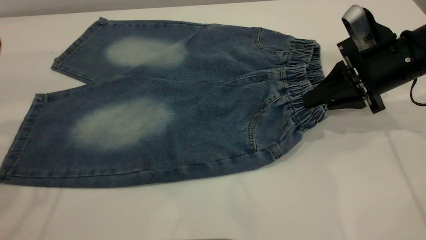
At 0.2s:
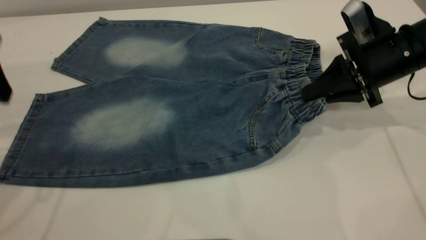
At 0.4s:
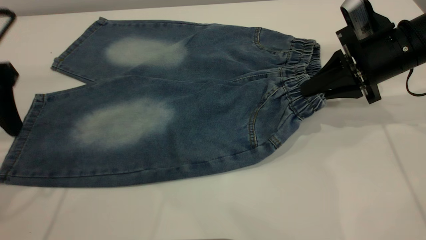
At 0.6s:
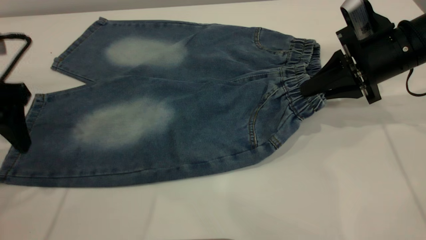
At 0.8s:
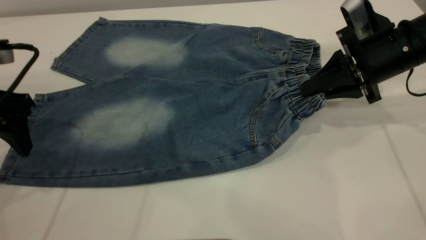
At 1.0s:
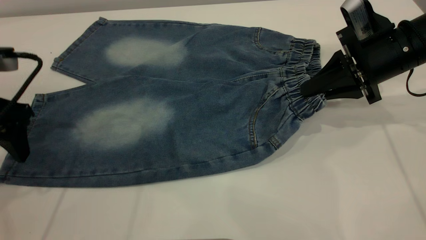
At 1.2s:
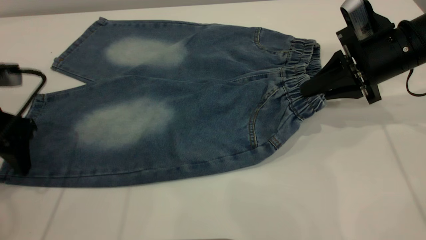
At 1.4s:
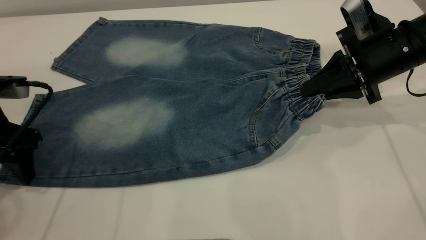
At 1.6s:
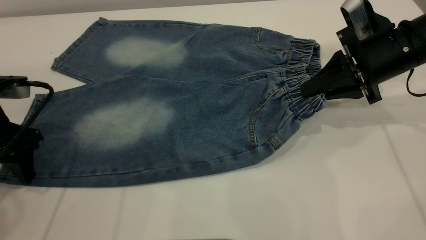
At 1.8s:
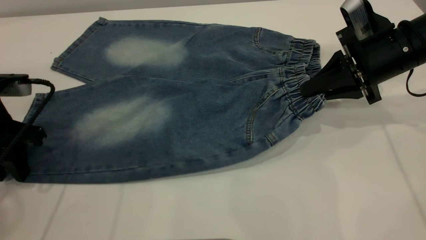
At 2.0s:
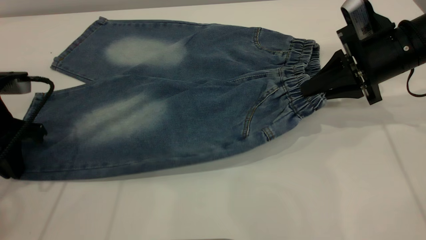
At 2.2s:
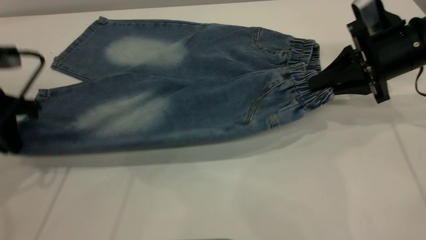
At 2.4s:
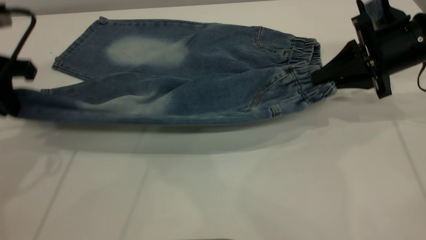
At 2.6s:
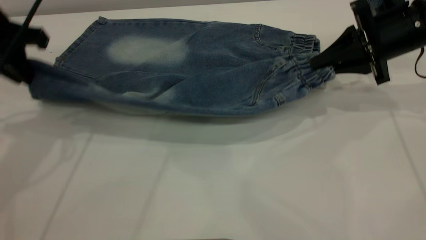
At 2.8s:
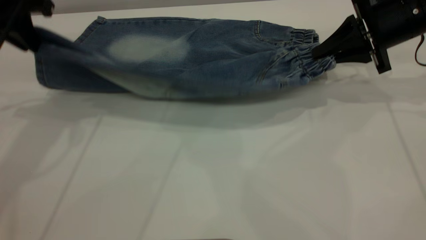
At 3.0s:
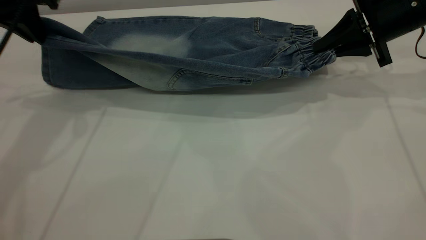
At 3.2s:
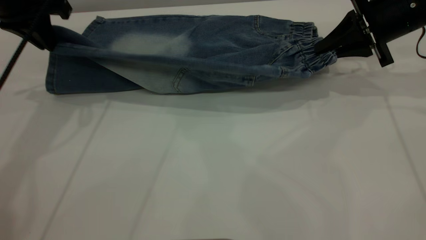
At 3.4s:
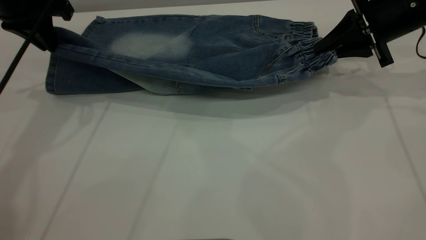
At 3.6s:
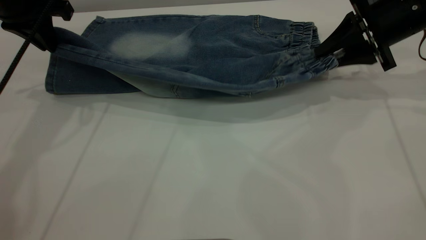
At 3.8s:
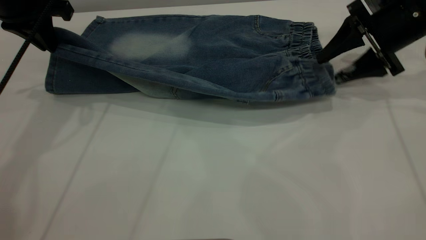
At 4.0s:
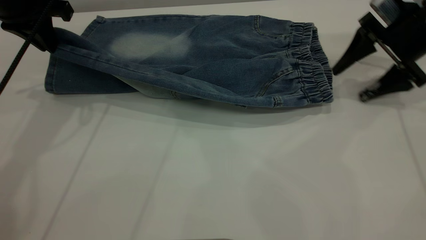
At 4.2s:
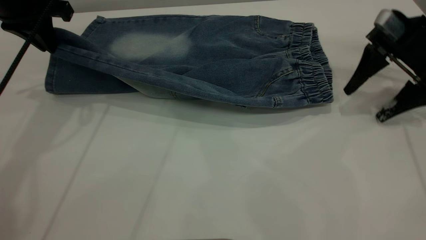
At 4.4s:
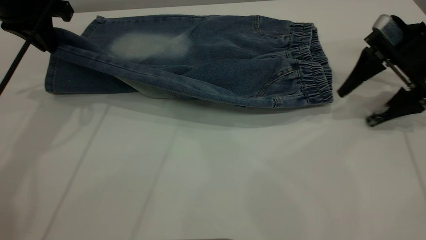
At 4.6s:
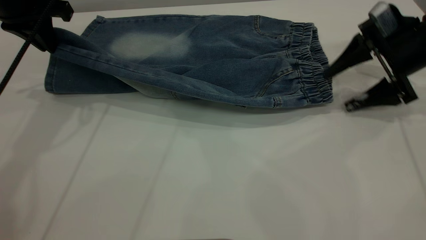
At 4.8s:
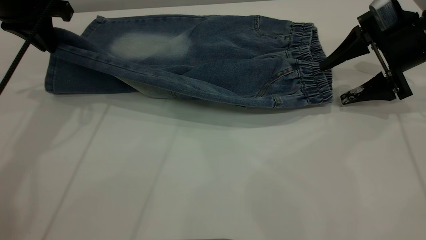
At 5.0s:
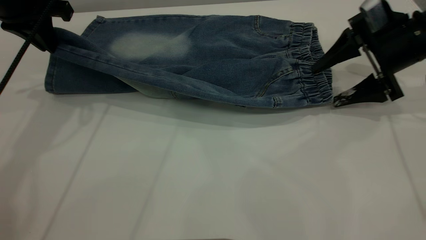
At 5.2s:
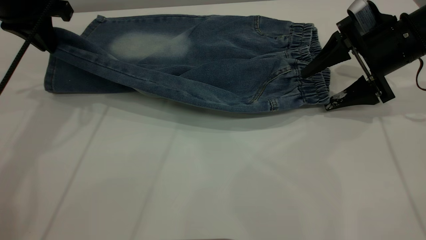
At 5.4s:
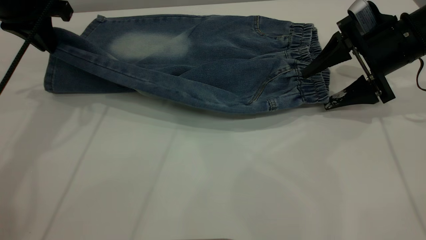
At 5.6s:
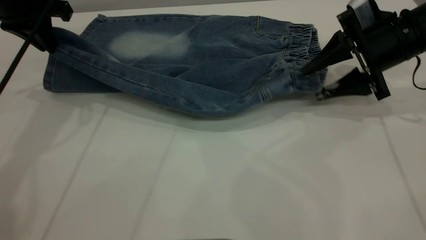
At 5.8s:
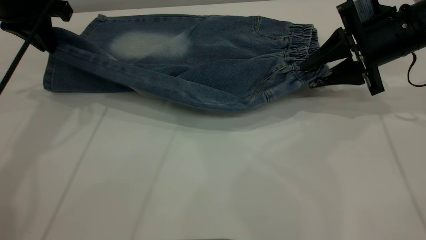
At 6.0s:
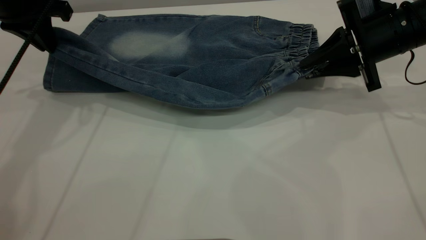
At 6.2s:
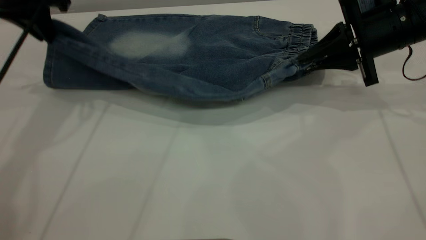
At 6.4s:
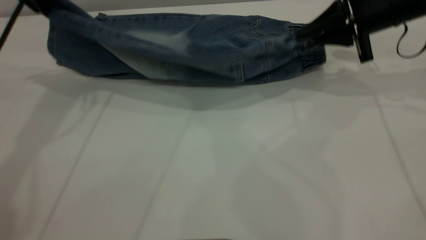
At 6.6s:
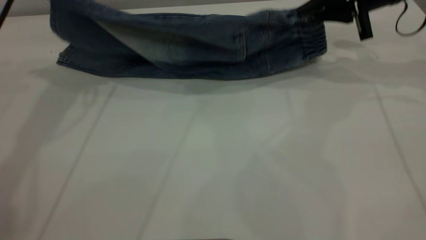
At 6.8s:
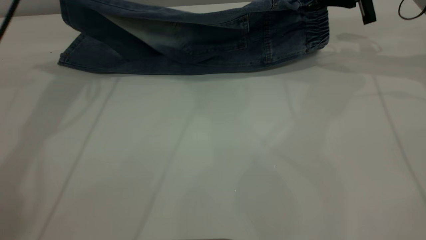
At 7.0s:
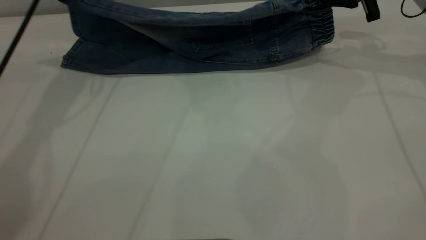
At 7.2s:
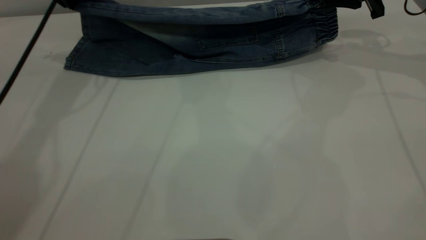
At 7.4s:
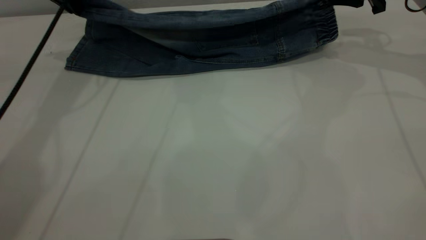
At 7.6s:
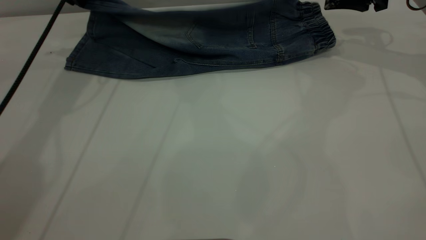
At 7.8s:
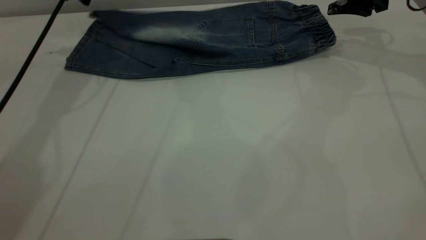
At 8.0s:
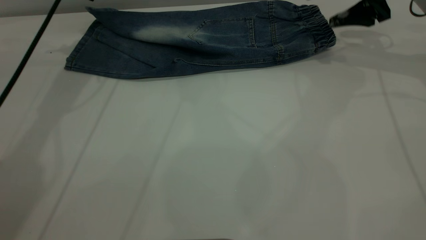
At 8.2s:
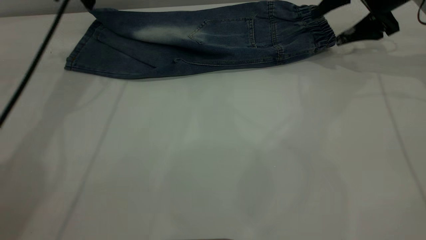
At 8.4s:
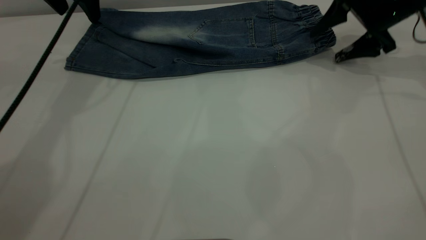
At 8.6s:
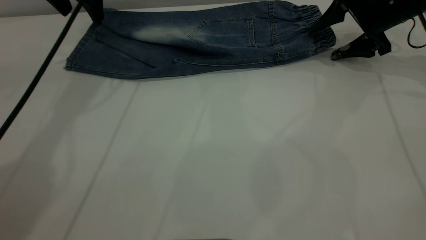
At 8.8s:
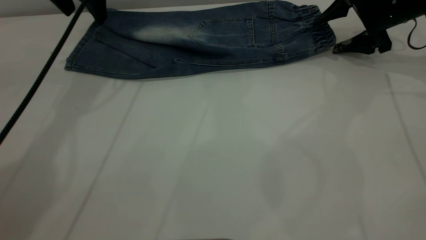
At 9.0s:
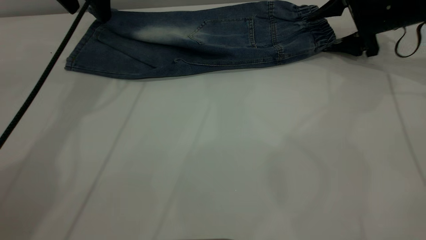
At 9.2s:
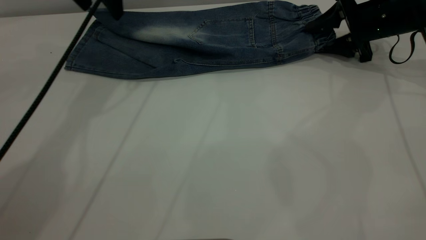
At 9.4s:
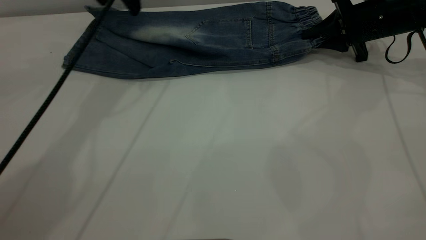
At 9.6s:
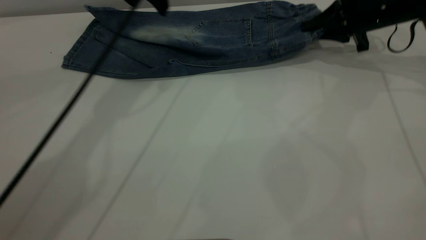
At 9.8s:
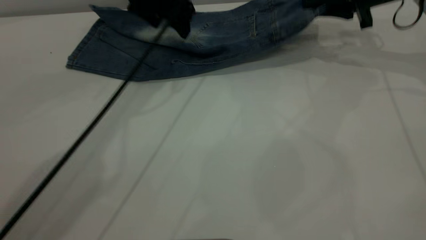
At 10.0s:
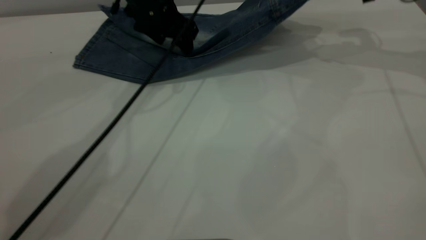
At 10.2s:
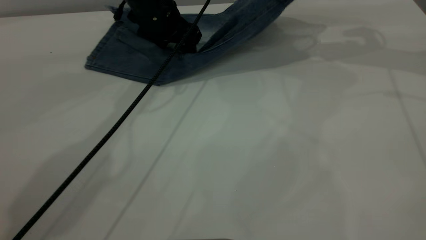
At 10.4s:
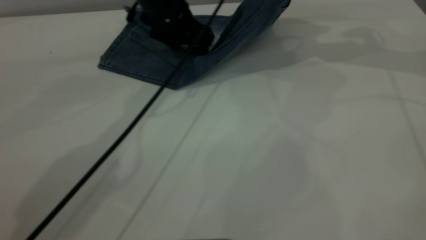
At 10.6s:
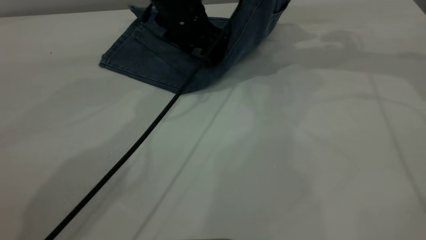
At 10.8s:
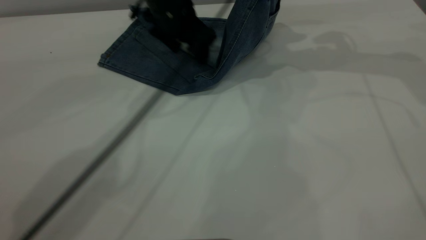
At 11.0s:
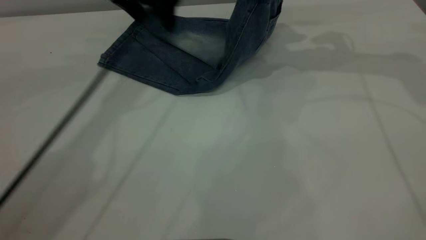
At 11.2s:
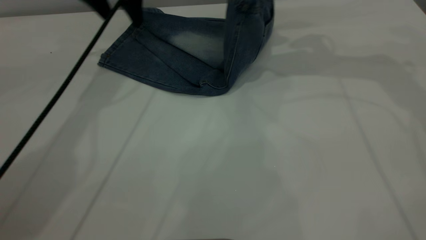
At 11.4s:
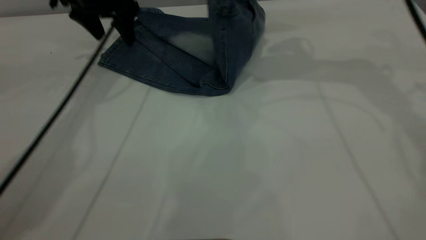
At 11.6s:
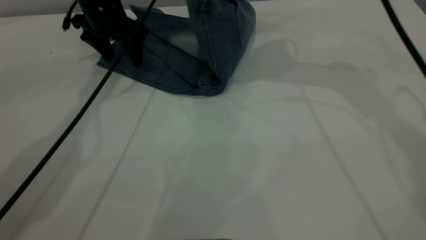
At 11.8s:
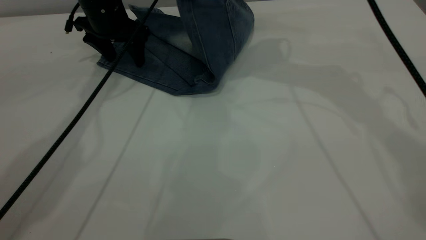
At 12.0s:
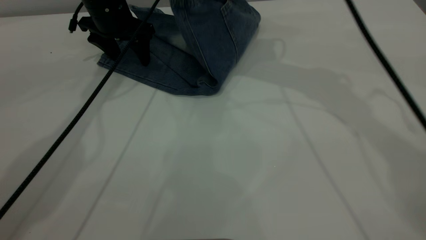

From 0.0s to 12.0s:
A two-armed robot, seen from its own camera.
Step, from 0.0s to 8.4s: Fold the bottom of the pants upward.
From 0.0s to 1.6s: The left gripper is displaced downward by some 15 cm.
From 1.6s to 3.0s: The left gripper travels upward and forward by roughly 15 cm, and closes; the right gripper shifts some 5 cm forward.
From 3.0s to 4.4s: The right gripper shifts by approximately 5 cm, and opens.
From 4.4s to 6.0s: The right gripper closes up.
From 6.0s to 7.6s: The left gripper is displaced forward by about 10 cm. Meanwhile the right gripper shifts approximately 10 cm forward and upward, and opens.
From 7.6s to 9.0s: The left gripper moves roughly 5 cm, and opens its fingers. The right gripper goes roughly 10 cm downward.
From 9.0s to 10.4s: The right gripper travels upward by roughly 15 cm, and closes its fingers; the left gripper goes about 15 cm to the right and downward.
From 10.4s to 12.0s: The left gripper heads to the left, covering some 10 cm, while the right gripper goes about 20 cm to the left.

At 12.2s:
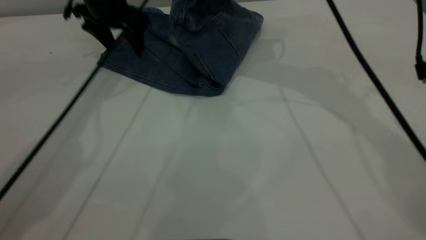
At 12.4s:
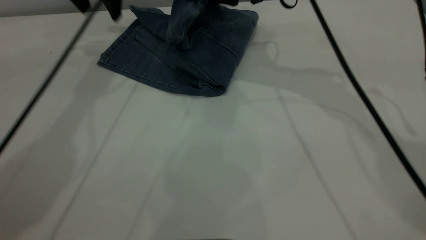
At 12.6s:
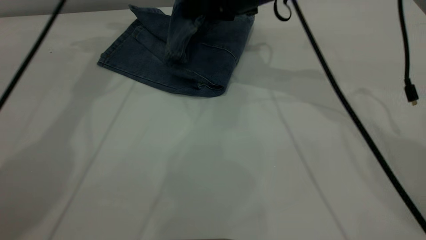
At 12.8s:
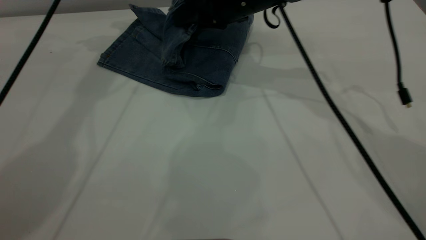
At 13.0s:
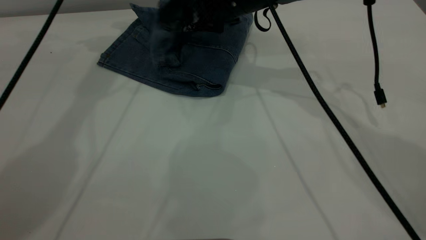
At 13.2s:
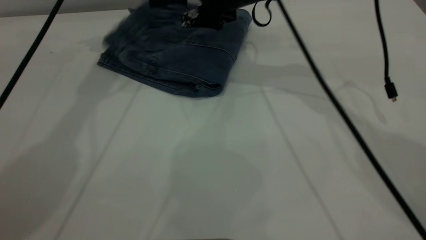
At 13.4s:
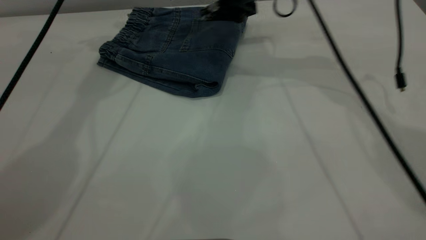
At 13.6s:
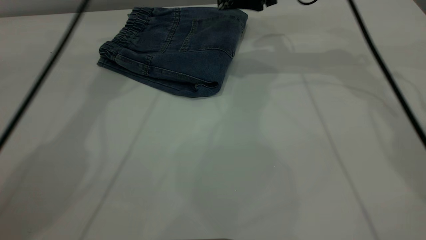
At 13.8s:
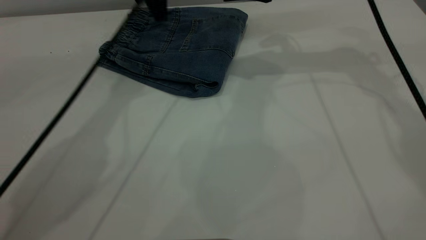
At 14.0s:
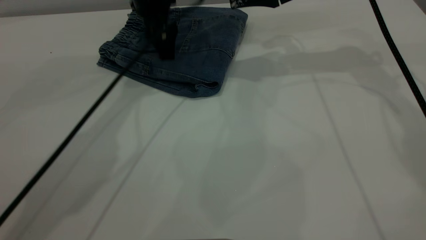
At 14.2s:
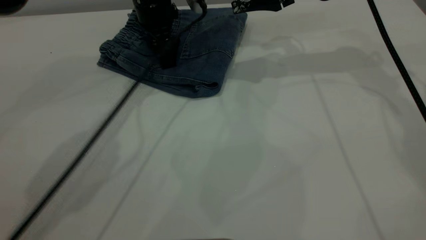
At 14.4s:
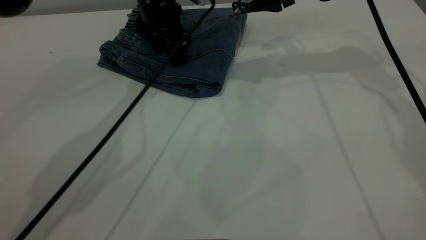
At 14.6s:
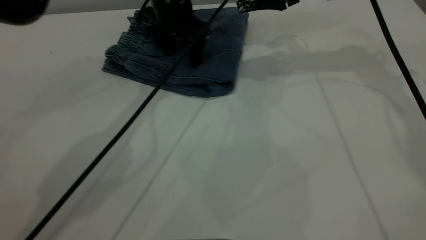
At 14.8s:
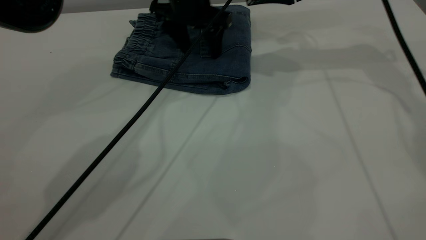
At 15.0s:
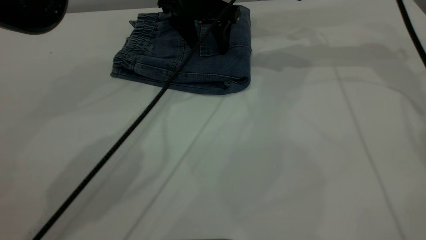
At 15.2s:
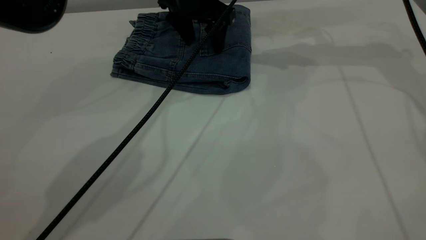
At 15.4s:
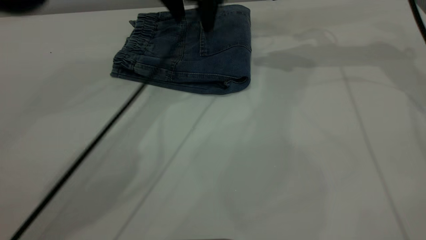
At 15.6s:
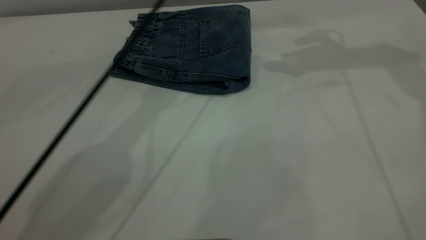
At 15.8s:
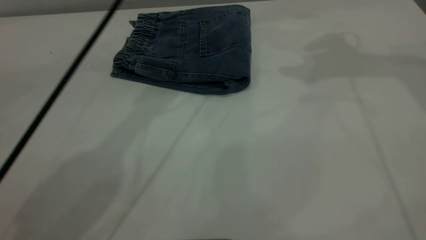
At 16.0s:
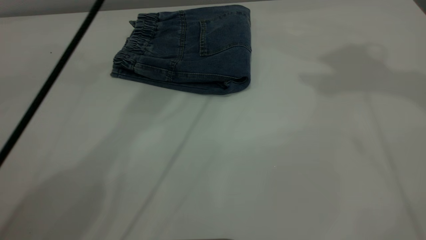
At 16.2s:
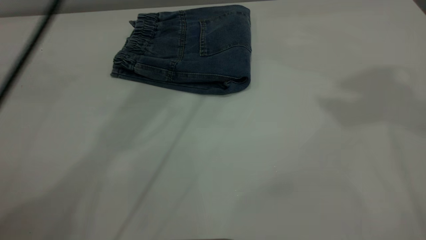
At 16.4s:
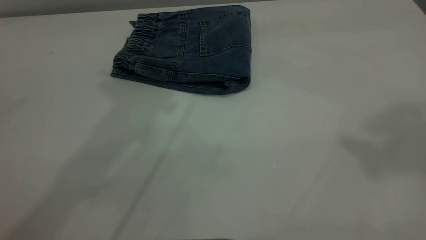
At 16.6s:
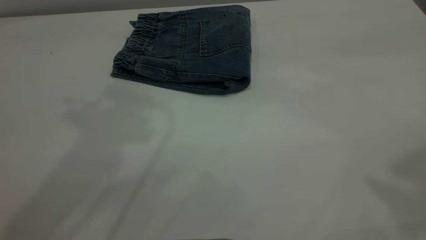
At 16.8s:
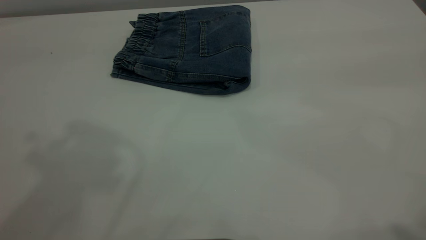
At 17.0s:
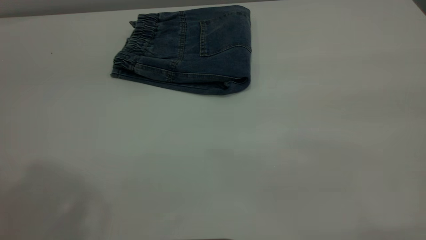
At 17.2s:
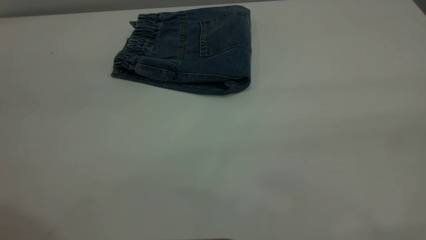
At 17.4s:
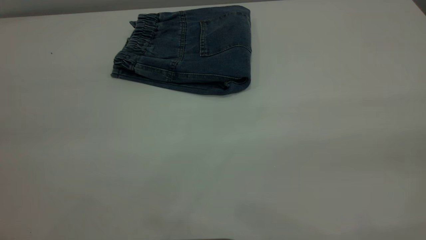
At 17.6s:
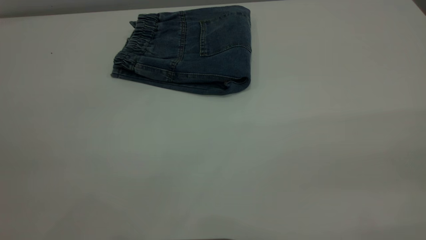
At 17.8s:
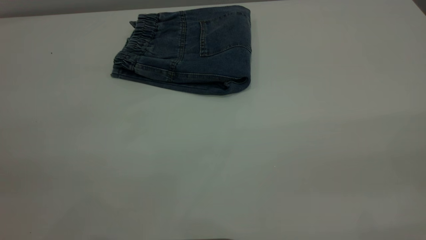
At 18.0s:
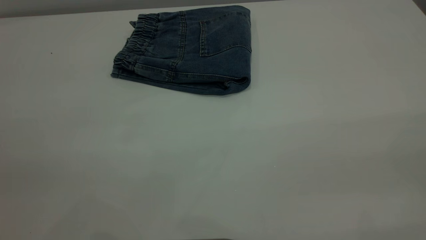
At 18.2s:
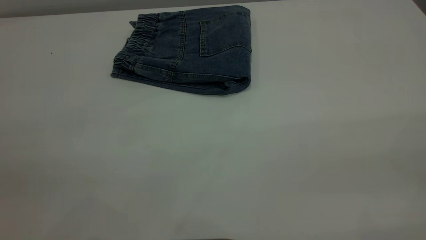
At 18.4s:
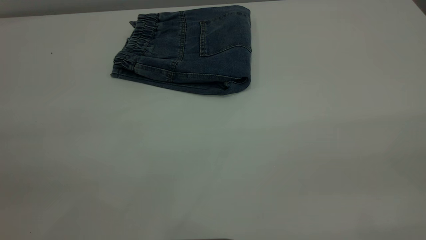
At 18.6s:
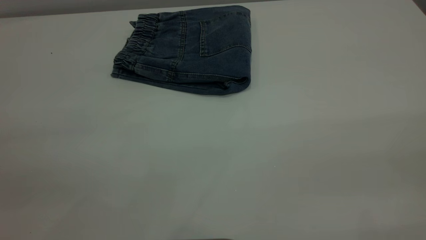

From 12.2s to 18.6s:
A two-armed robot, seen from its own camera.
From 12.2s to 13.8s: Both grippers travel together to the right, approximately 5 cm. The right gripper opens up.
From 13.8s to 15.4s: Both grippers travel together to the right, roughly 5 cm.
From 15.4s to 17.0s: The left gripper moves backward, upward and to the left, roughly 50 cm. The right gripper moves backward and upward, roughly 50 cm.
